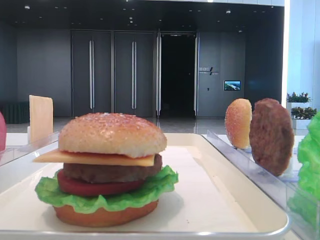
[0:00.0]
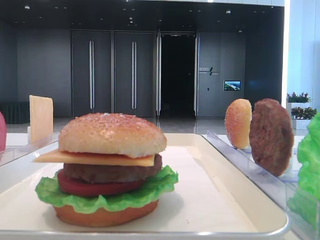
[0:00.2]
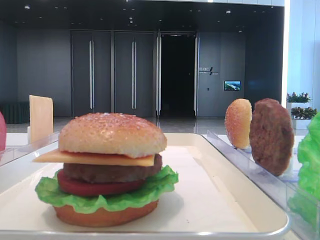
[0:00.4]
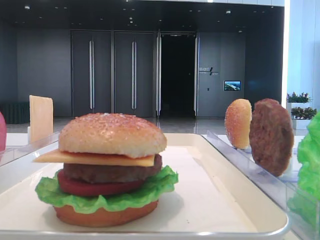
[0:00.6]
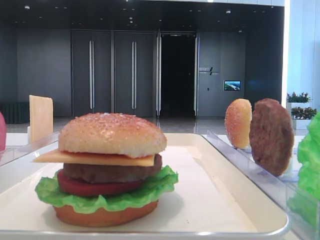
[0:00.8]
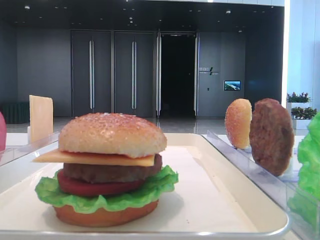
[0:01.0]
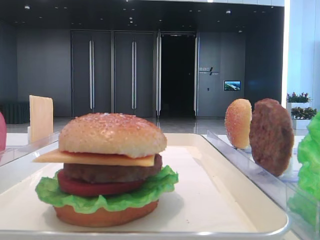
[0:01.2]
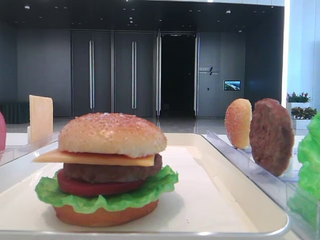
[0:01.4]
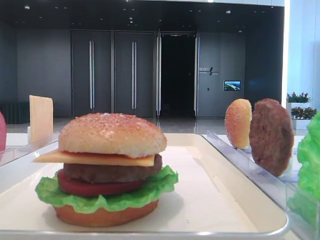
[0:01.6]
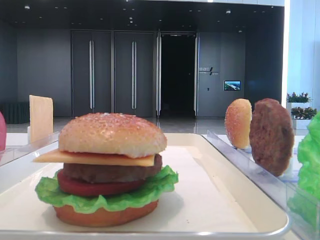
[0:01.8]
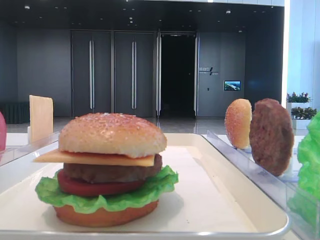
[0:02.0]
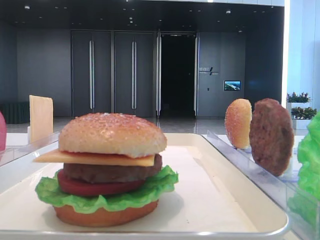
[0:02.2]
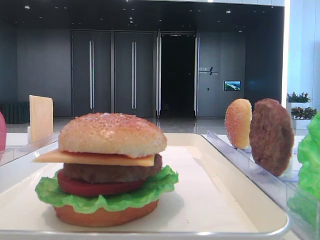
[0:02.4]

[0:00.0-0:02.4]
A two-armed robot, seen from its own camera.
0:01.2 to 0:02.4: Both grippers stay about where they are.

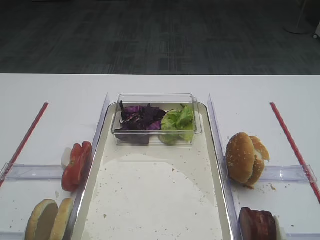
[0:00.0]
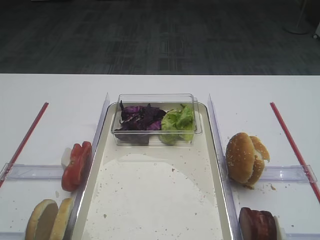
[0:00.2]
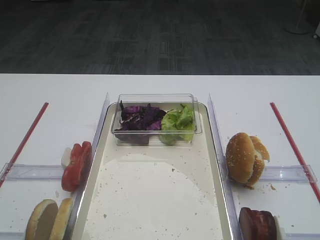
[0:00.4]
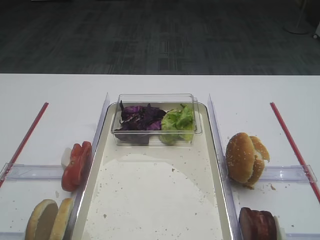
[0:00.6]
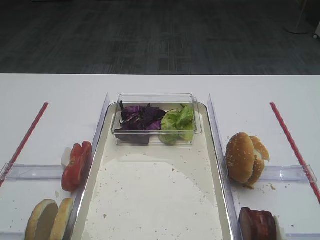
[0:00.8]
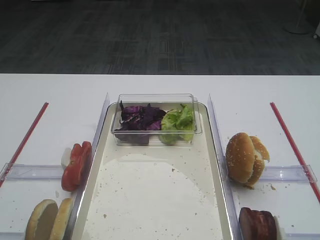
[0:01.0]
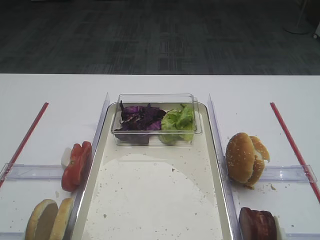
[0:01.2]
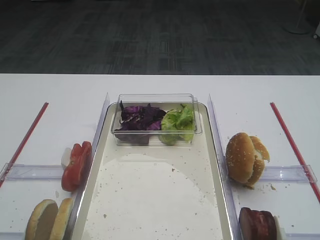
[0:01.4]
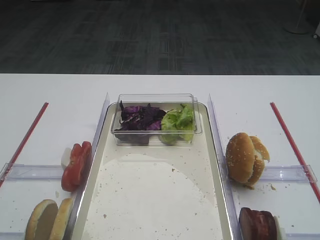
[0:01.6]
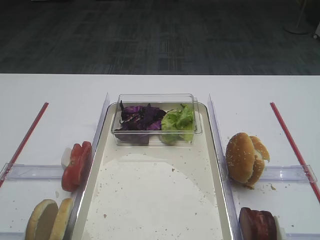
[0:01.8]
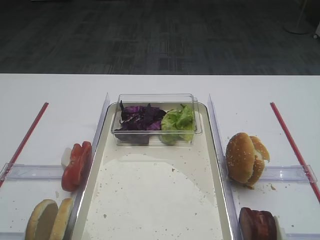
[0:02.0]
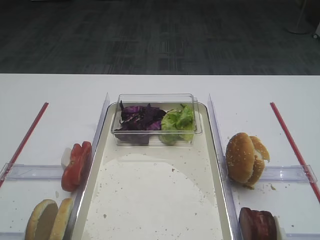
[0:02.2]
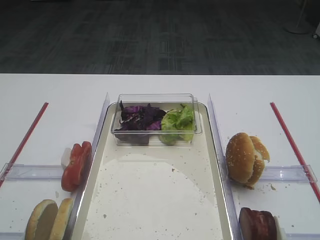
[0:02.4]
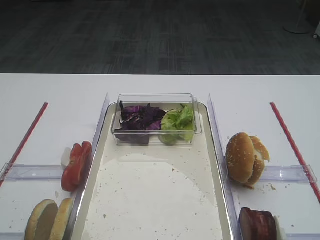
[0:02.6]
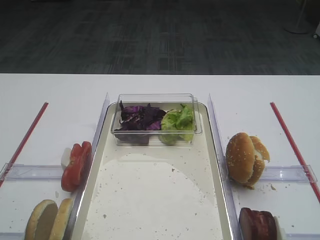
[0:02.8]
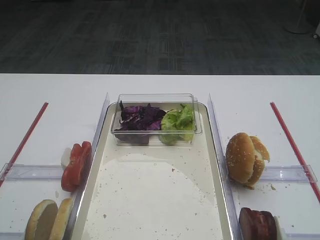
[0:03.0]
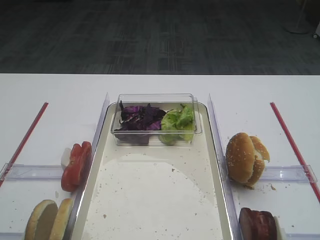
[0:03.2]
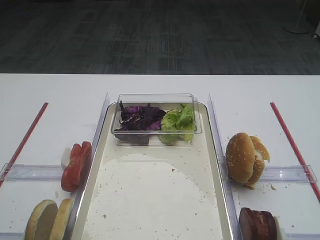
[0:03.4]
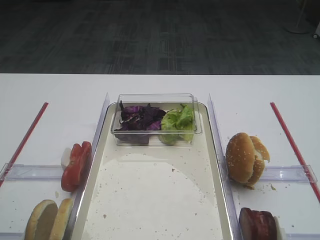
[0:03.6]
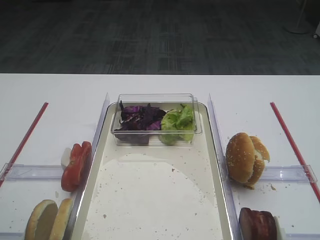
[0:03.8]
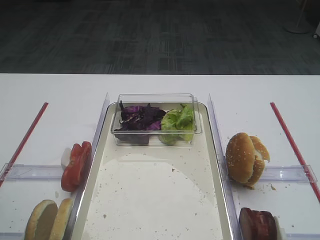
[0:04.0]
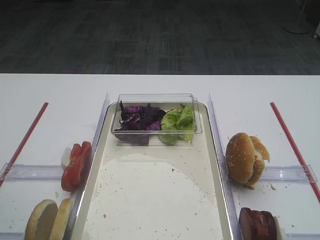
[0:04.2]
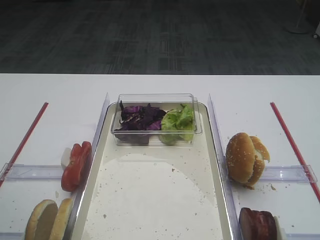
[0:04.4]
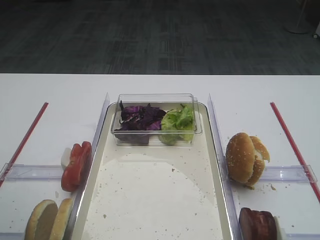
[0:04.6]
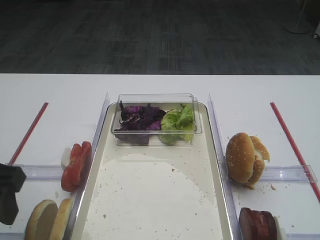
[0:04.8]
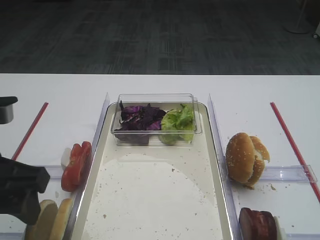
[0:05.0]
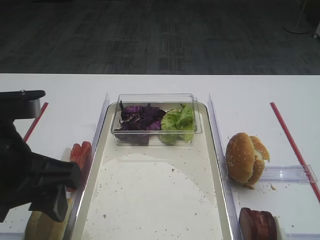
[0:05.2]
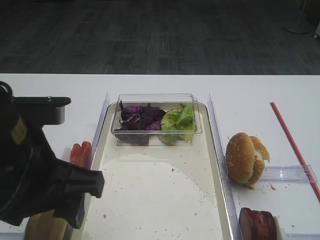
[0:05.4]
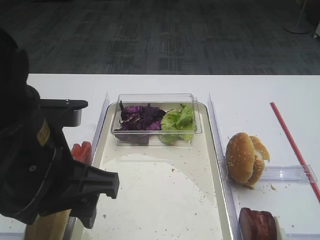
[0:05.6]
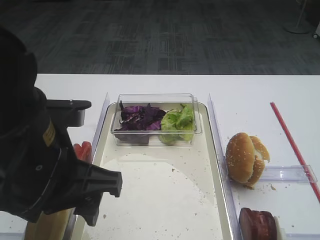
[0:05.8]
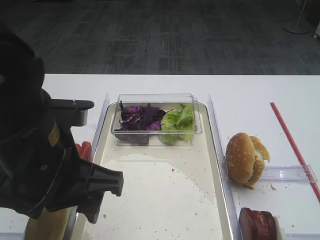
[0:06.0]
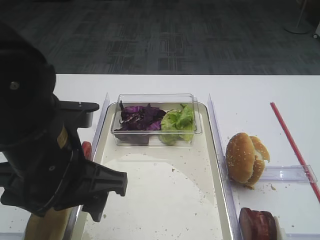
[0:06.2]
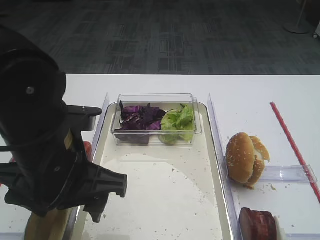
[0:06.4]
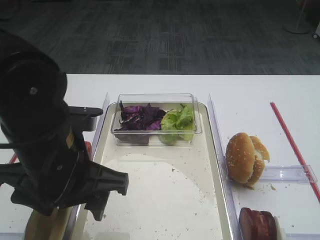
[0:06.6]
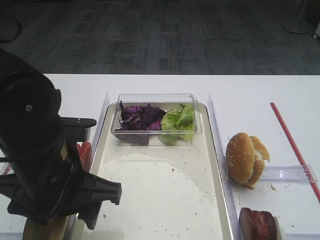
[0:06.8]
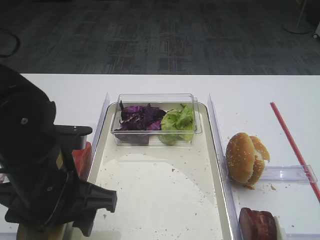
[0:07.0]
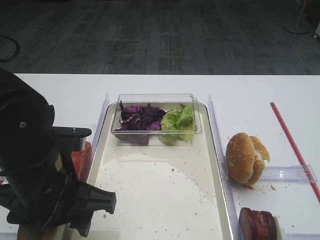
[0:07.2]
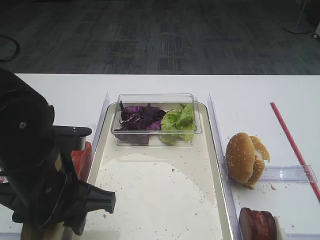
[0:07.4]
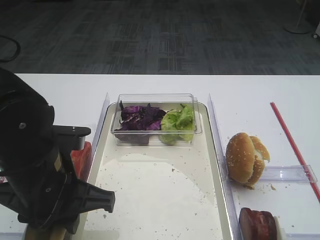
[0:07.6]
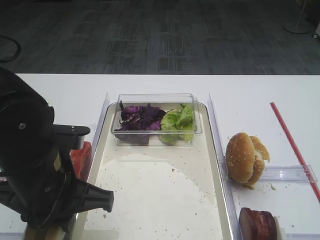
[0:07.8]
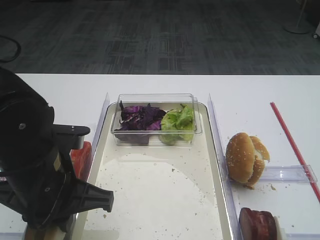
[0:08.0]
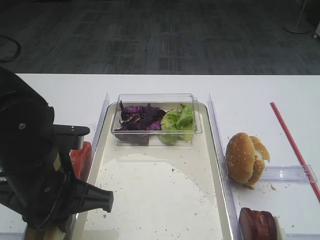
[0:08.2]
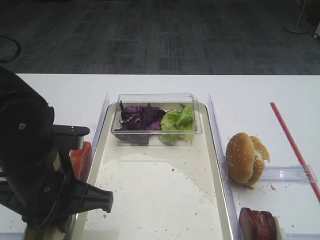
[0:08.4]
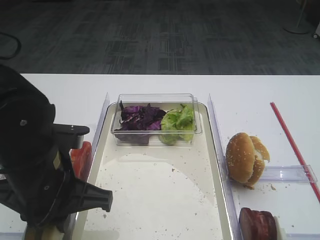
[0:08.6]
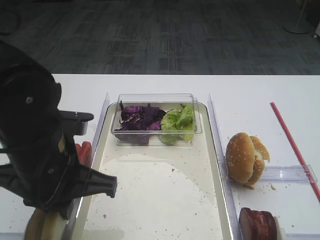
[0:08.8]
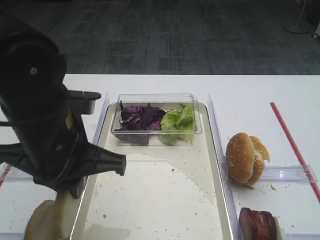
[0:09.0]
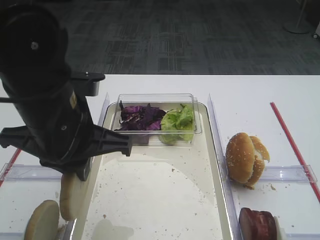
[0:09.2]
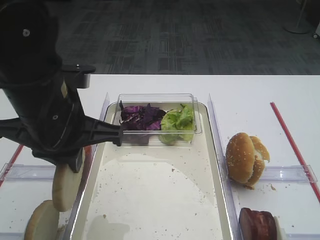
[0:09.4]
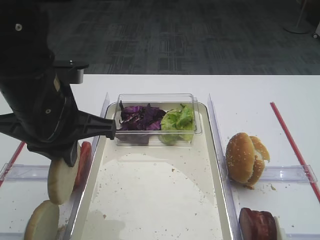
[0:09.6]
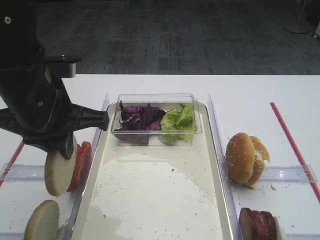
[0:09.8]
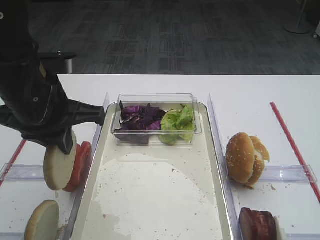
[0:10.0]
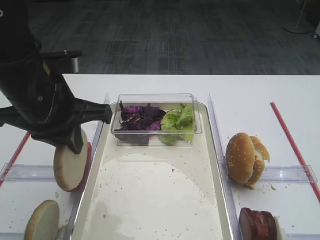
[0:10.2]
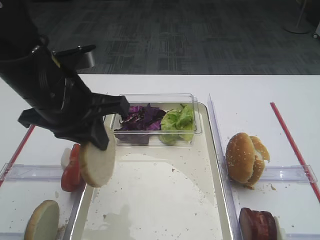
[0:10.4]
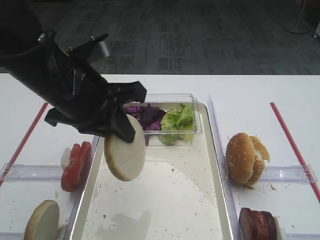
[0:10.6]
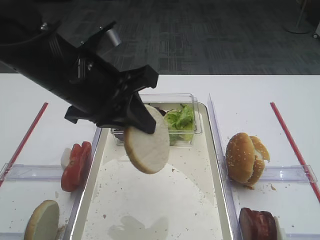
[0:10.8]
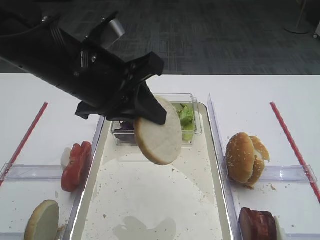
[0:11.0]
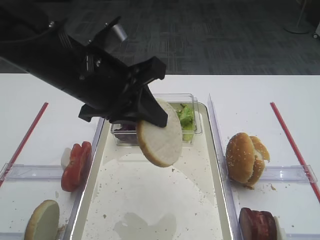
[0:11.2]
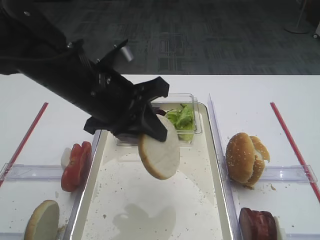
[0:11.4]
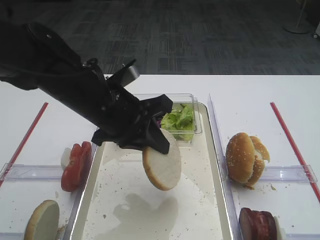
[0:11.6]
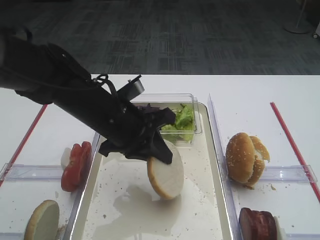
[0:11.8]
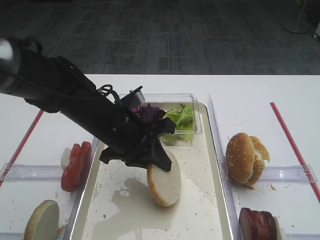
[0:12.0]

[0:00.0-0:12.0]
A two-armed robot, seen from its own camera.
Step, 0:00.0 to 0:09.0: Pick up the bread slice with the left gripper.
0:04.4 to 0:06.0: The left gripper travels to the right by about 20 cm.
0:06.0 to 0:07.6: The left gripper is displaced downward by roughly 5 cm, and closes its fingers.
0:07.6 to 0:09.0: The grippers move only a little.
0:09.0 to 0:10.4: The left gripper changes place by roughly 5 cm.
0:10.4 to 0:12.0: The left gripper is displaced downward and to the right by approximately 10 cm.

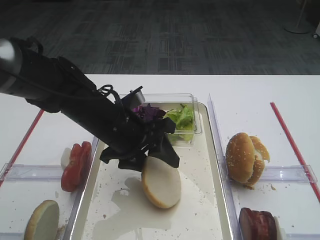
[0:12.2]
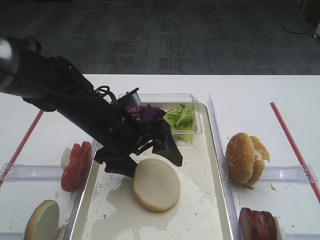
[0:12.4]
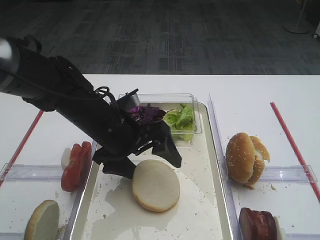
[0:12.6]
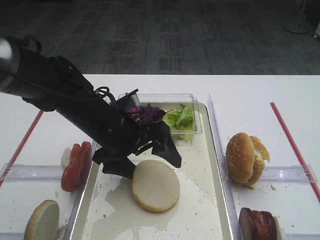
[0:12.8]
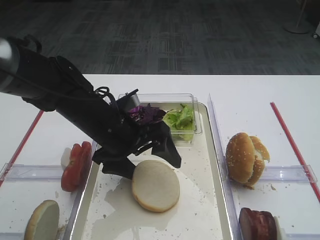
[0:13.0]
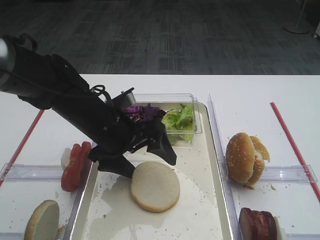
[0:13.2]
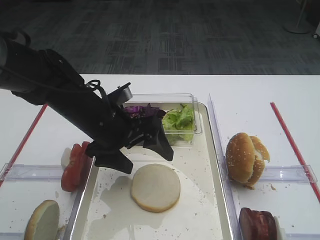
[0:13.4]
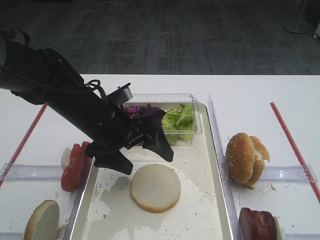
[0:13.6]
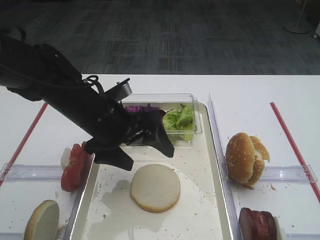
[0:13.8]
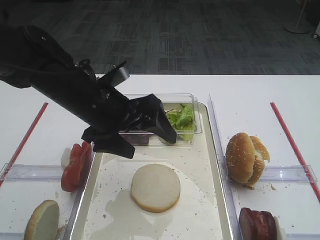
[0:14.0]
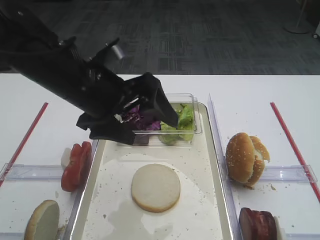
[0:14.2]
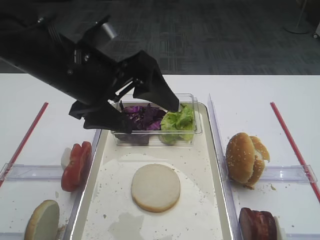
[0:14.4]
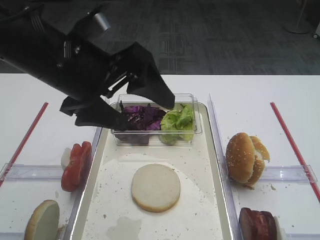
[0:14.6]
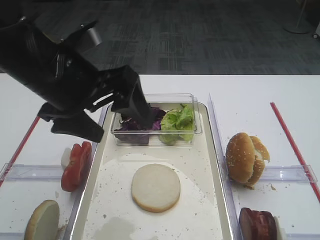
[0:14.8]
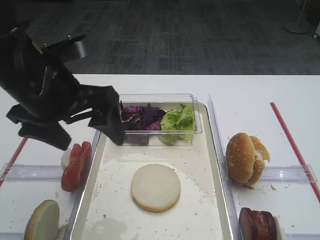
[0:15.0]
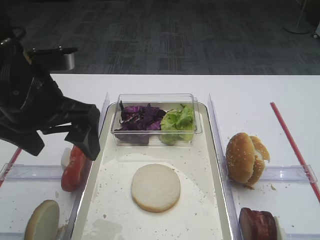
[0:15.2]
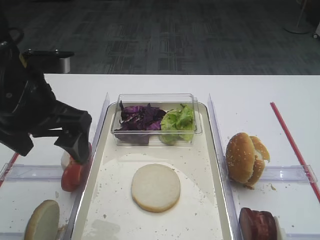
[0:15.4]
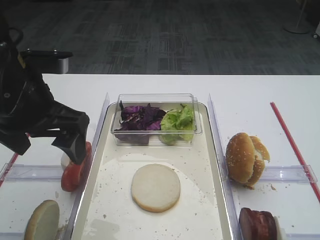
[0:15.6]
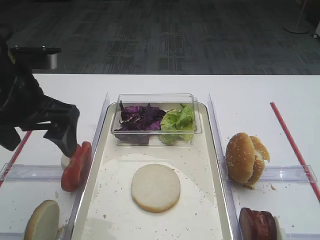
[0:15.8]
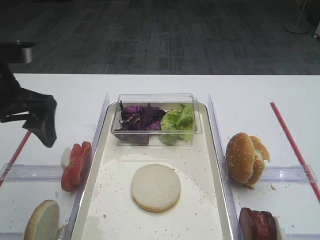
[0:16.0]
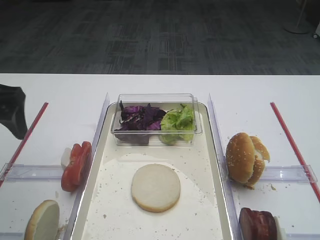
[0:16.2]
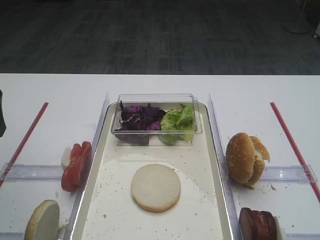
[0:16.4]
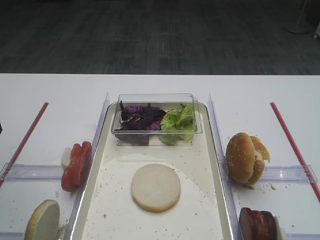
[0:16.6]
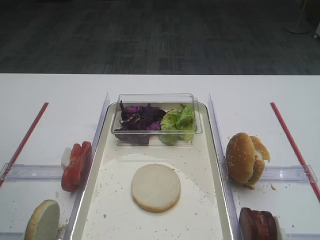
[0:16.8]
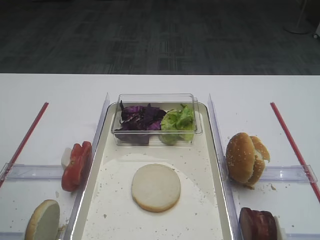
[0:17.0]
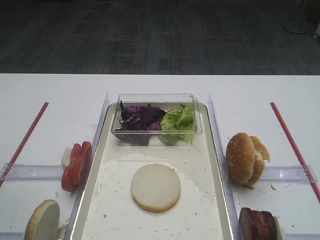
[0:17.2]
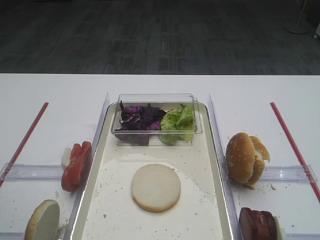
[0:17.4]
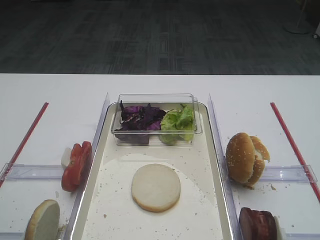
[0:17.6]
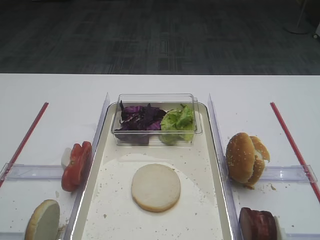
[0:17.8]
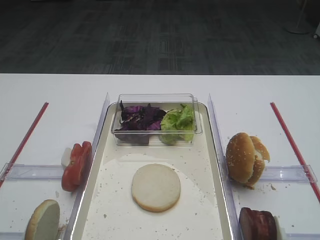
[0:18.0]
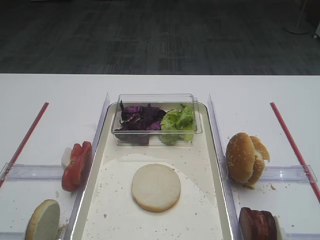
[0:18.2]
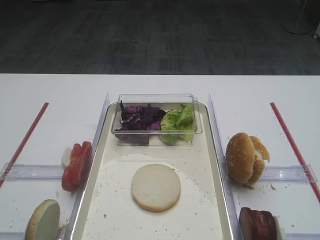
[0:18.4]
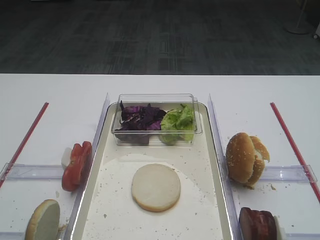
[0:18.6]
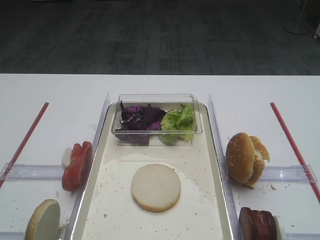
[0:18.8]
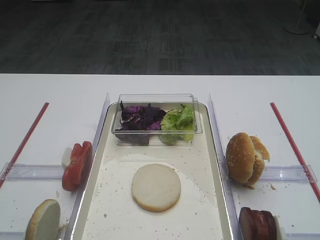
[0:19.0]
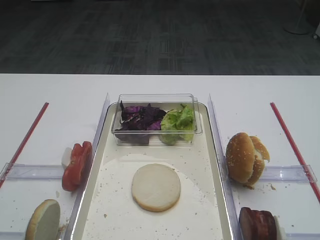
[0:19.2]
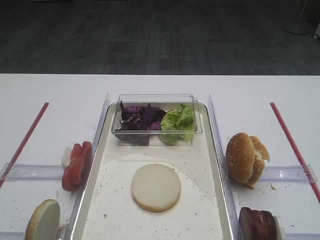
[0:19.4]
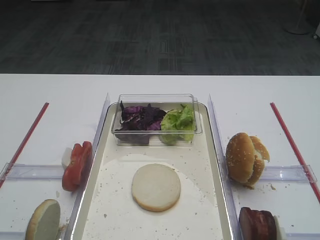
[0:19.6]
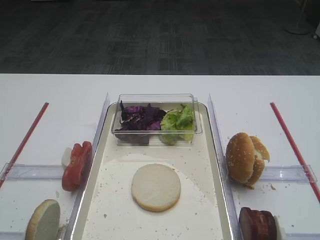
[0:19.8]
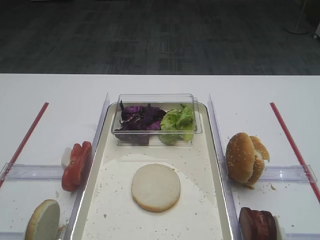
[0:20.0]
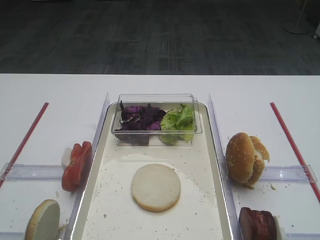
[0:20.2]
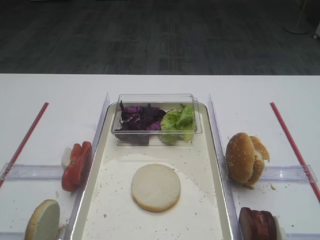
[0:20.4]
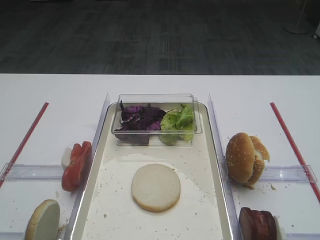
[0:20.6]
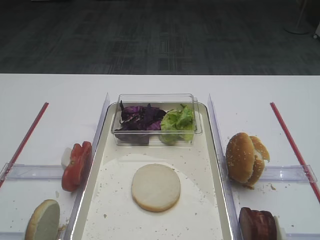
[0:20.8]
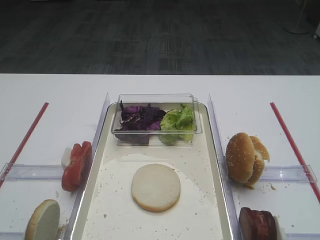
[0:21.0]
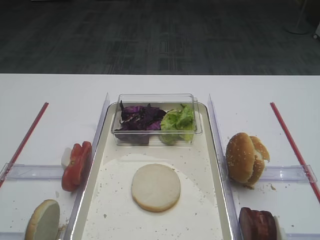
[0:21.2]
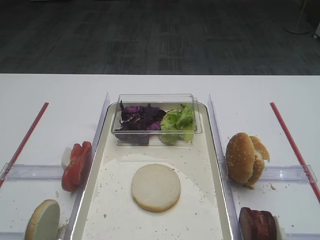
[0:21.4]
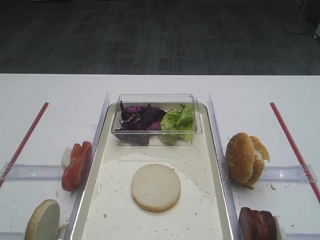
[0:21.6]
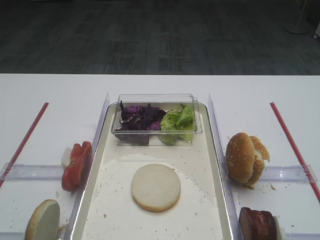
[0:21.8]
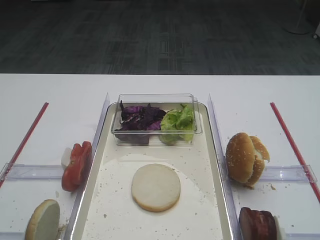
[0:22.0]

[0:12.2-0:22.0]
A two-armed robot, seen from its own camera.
0:12.2 to 0:13.6: The left gripper opens up.
0:13.6 to 0:15.0: The left gripper travels upward, backward and to the left by roughly 15 cm.
0:15.0 to 0:16.4: The left gripper moves to the left, approximately 15 cm.
0:16.4 to 0:17.8: The left gripper heads backward, covering approximately 15 cm.
0:20.6 to 0:22.0: Neither gripper changes place.
